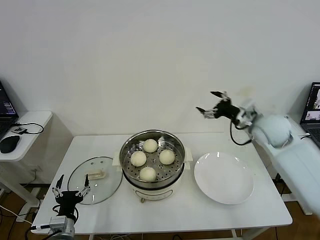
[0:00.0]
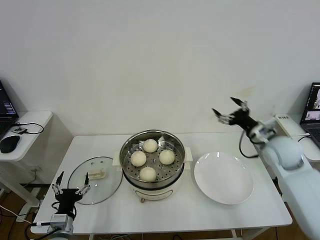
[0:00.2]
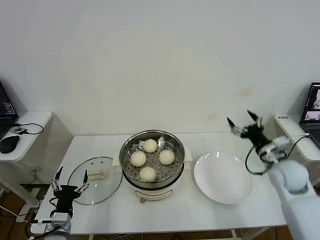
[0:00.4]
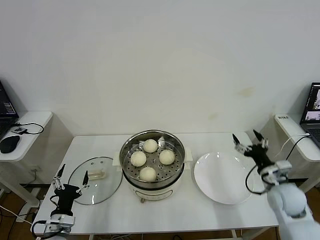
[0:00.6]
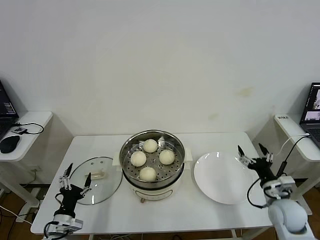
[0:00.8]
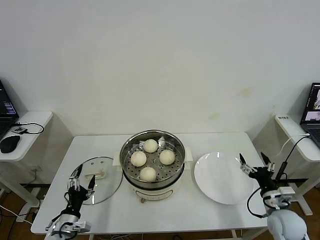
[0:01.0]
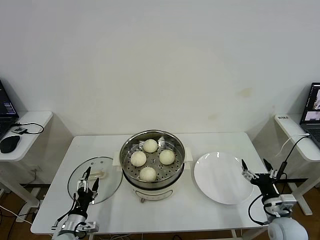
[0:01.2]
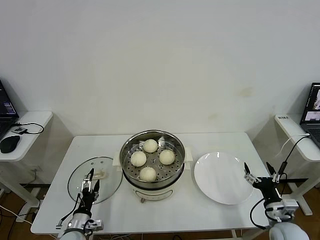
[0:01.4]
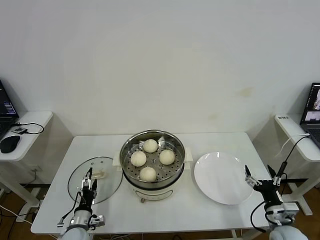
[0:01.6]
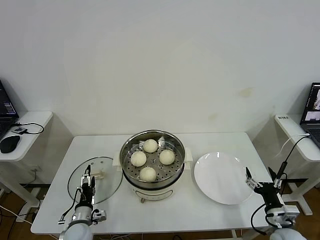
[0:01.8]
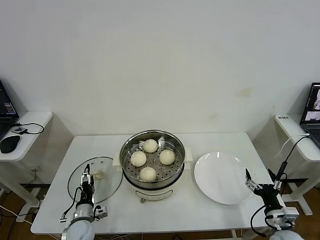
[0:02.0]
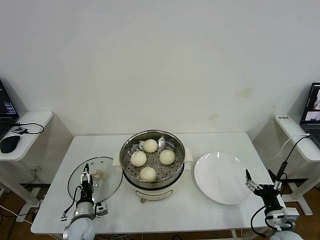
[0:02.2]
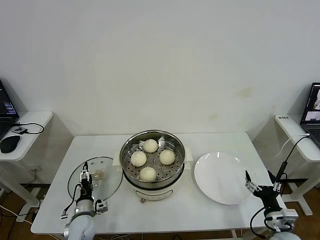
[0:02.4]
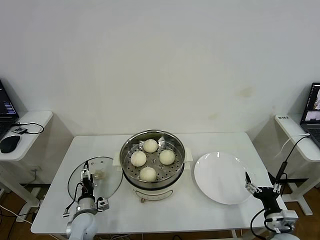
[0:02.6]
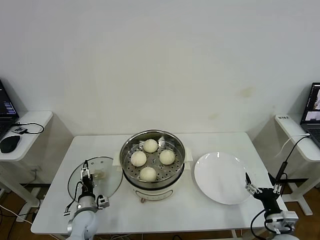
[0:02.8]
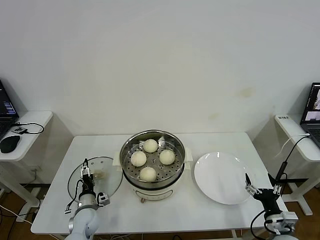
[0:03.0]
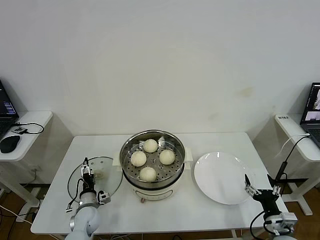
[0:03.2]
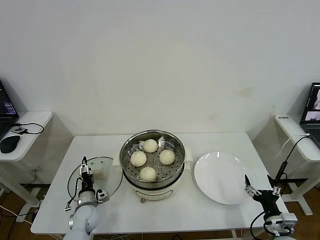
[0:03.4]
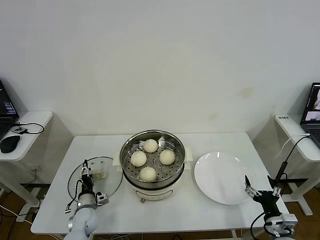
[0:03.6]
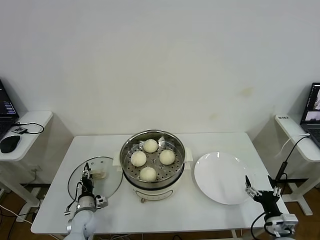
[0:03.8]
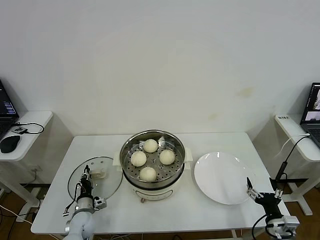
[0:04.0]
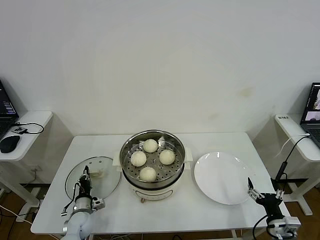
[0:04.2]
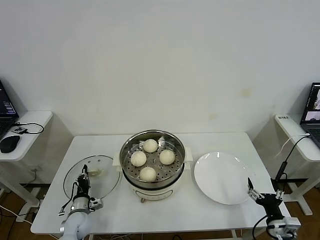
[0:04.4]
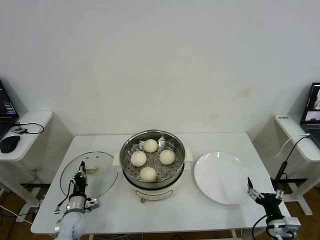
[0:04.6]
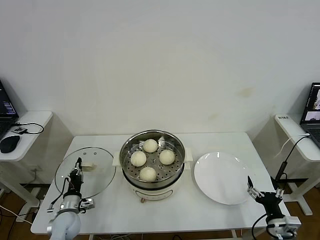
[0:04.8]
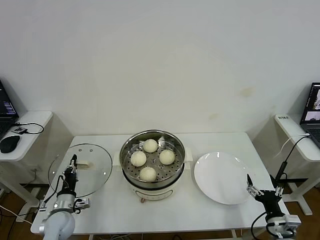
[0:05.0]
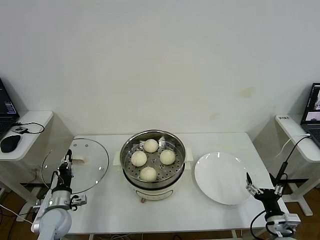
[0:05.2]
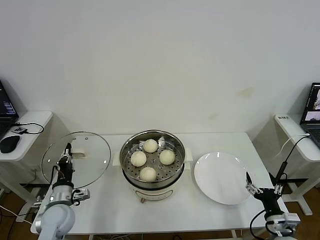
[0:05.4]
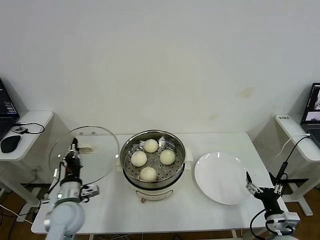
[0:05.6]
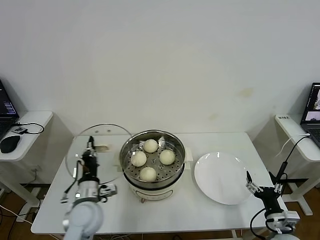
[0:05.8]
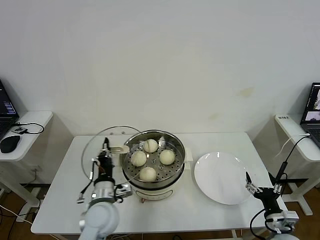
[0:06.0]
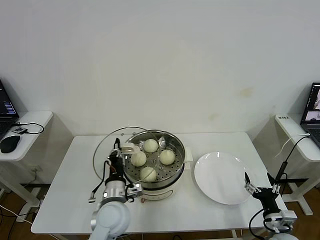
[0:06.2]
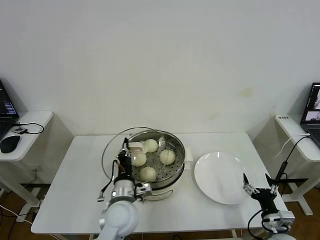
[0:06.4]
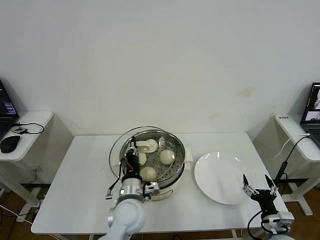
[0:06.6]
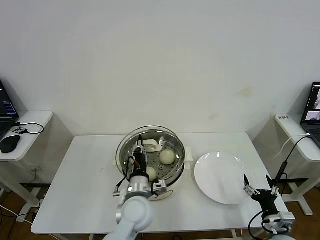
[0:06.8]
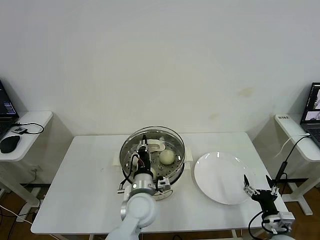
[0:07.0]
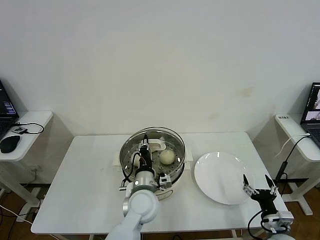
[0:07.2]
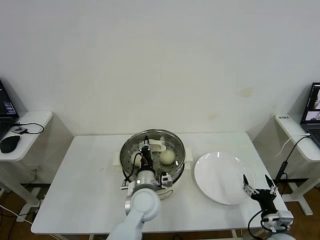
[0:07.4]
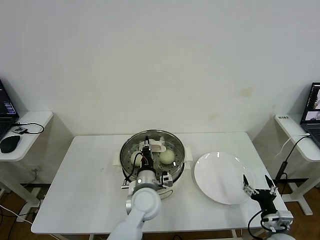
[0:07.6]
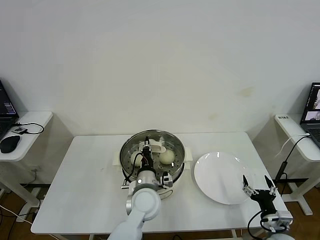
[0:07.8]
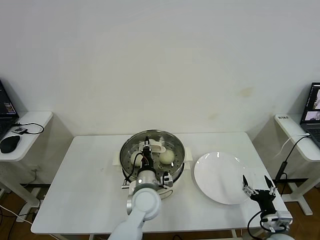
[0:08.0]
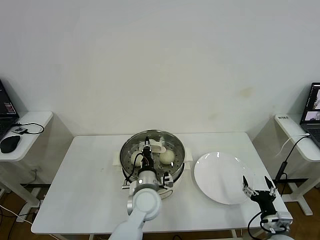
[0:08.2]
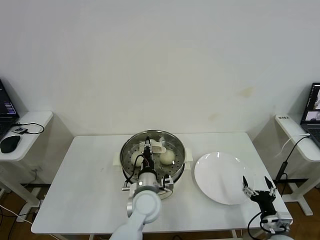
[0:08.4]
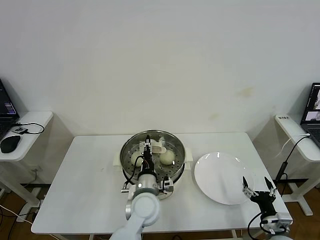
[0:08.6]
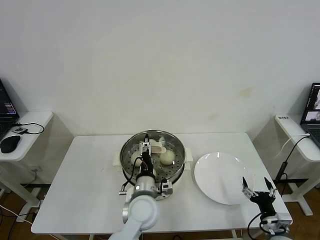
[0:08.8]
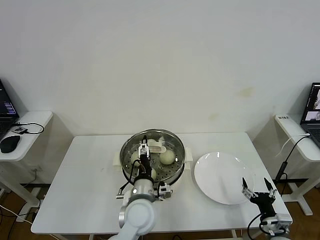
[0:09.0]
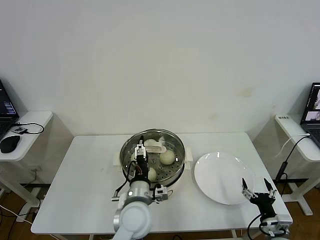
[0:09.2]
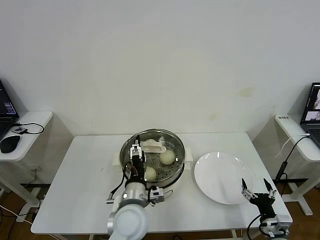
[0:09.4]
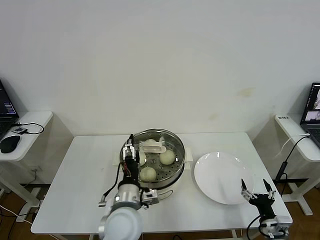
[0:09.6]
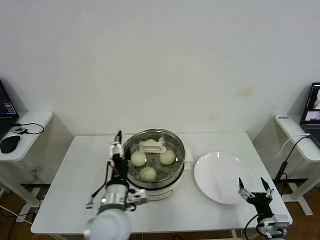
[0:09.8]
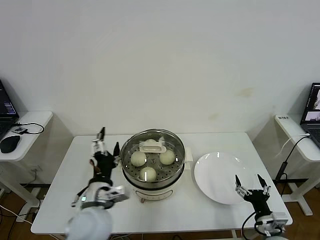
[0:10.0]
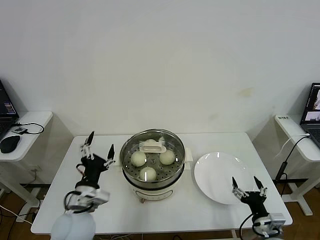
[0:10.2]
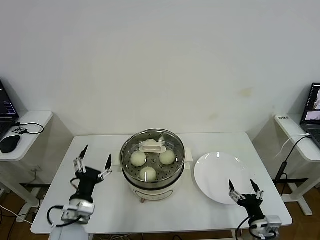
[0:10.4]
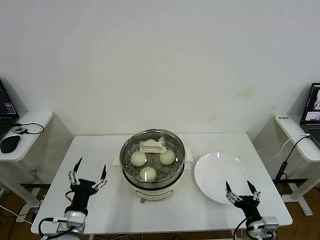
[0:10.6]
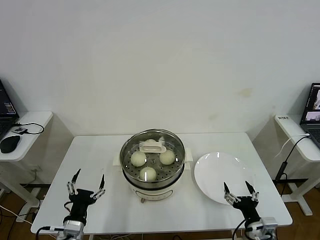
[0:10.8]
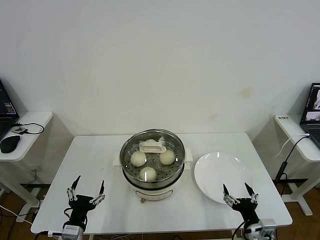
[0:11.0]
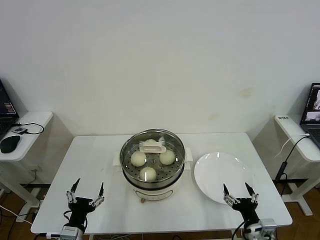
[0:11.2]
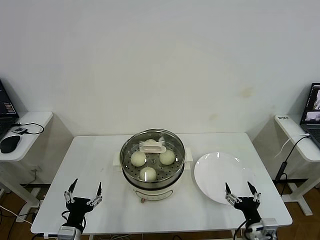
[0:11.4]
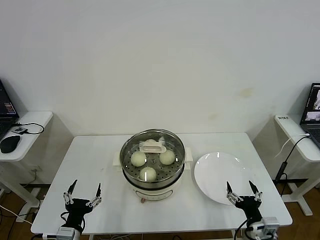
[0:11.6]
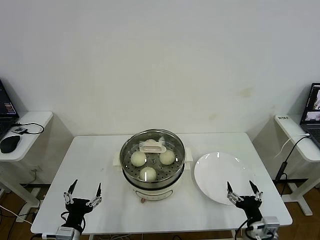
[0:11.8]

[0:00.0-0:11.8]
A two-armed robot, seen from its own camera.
Step, 0:00.0 to 0:04.4: Grasp the pot lid with left gripper.
Step, 0:04.6 to 0:08.6: Place the pot lid on the steamer with left gripper.
0:00.0 to 0:01.4: The left gripper is displaced downward by roughly 10 cm; the right gripper goes approximately 35 cm backward and downward.
0:01.4 to 0:03.0: The left gripper moves forward, roughly 10 cm.
0:03.0 to 0:04.4: The left gripper closes.
0:04.4 to 0:06.0: The left gripper moves upward and to the right, approximately 25 cm.
0:06.0 to 0:07.4: The left gripper heads to the right, covering roughly 15 cm.
0:07.4 to 0:08.8: The left gripper opens its fingers.
0:08.8 to 0:10.4: The left gripper shifts some 20 cm to the left. Meanwhile the right gripper ends up about 5 cm from where it was.
0:10.4 to 0:11.8: The left gripper shifts roughly 10 cm downward and backward.
